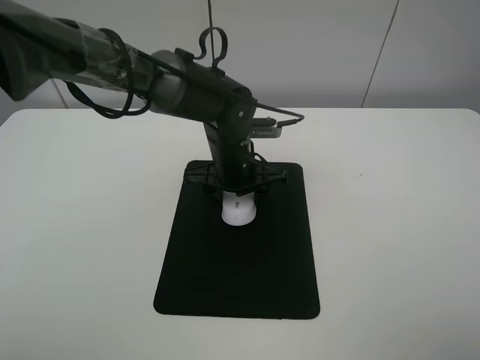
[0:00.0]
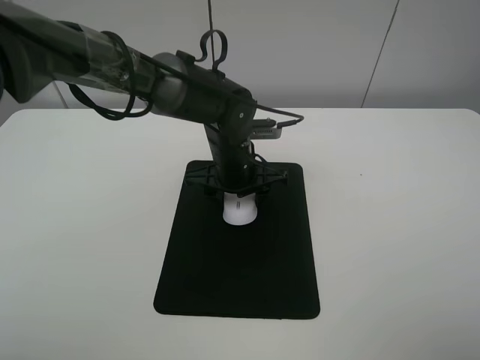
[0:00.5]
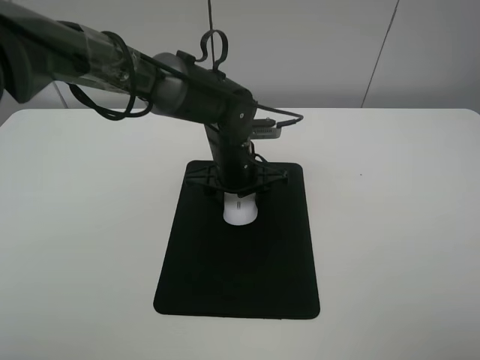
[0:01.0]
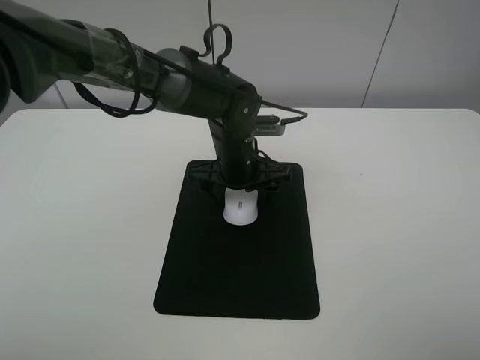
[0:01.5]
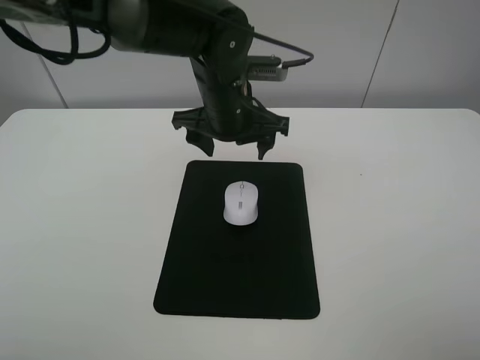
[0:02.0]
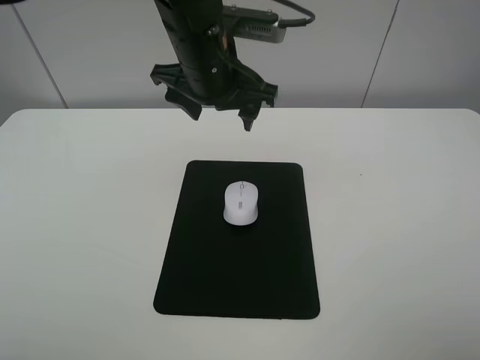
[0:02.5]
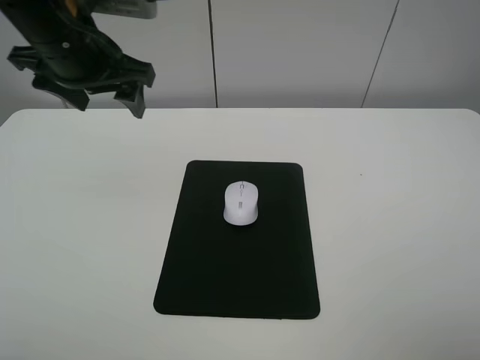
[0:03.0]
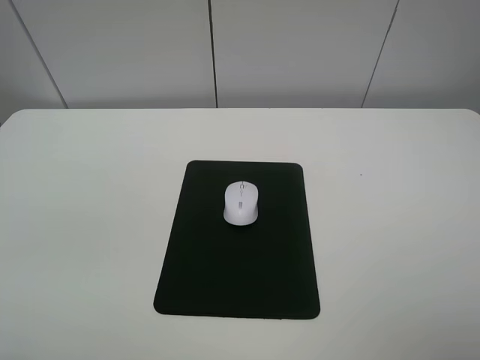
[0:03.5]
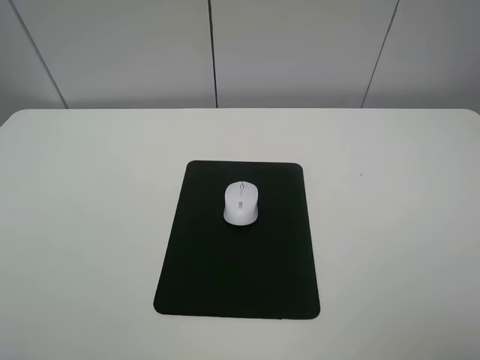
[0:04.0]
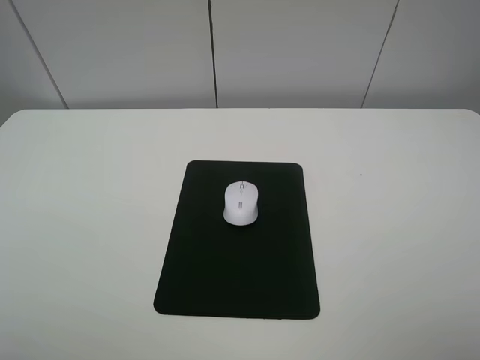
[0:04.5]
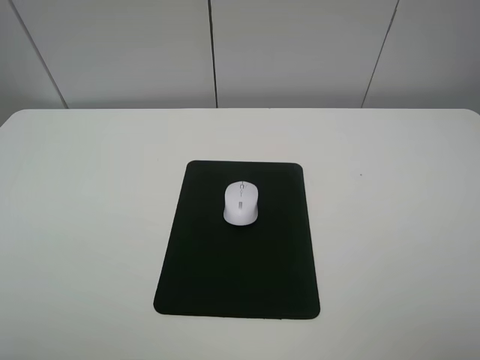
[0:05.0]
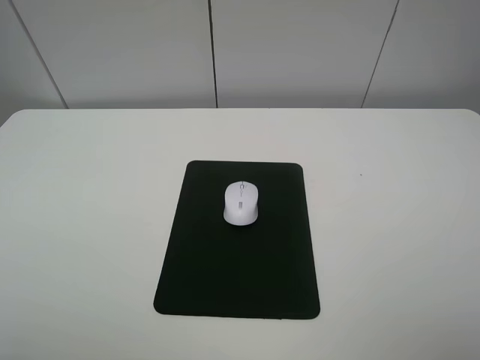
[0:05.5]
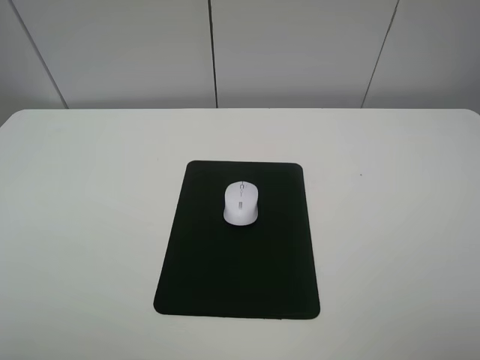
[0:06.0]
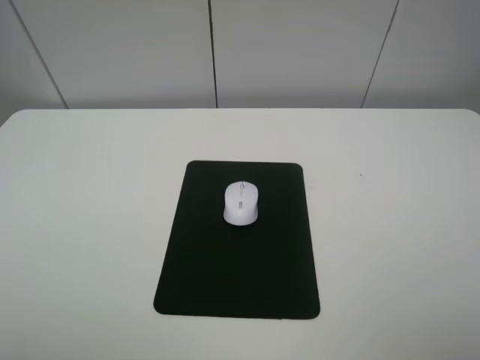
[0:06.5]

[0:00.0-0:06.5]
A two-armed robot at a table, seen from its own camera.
0:00.0 to 0:02.0: The left gripper moves upward, some 10 cm, and opens its fingers.
0:02.0 to 0:04.5: The left gripper shifts about 40 cm to the left and backward.
